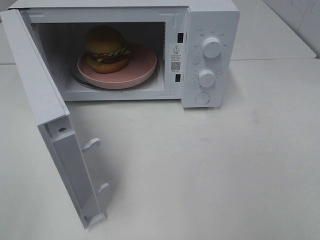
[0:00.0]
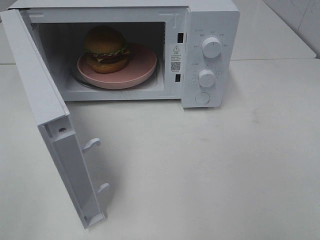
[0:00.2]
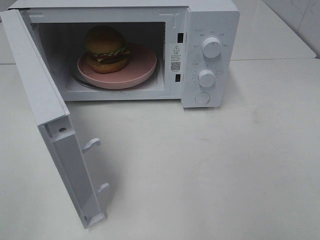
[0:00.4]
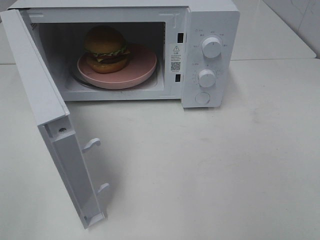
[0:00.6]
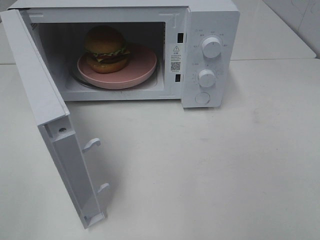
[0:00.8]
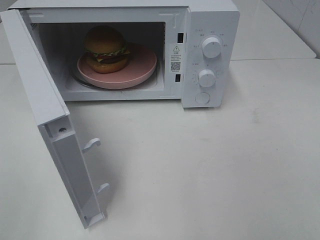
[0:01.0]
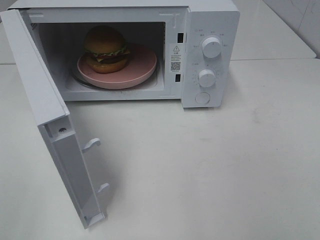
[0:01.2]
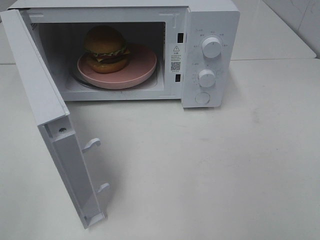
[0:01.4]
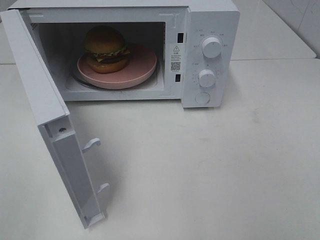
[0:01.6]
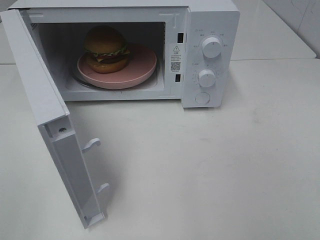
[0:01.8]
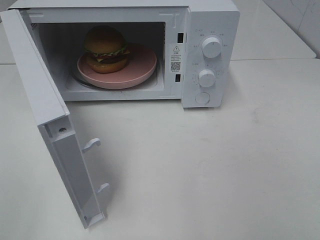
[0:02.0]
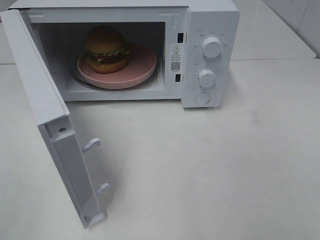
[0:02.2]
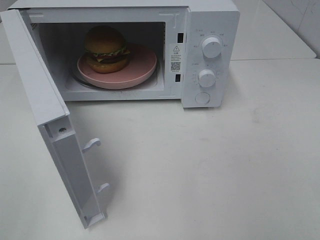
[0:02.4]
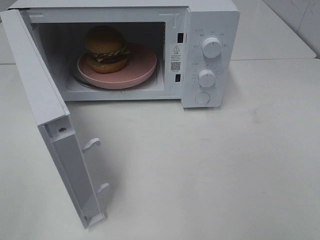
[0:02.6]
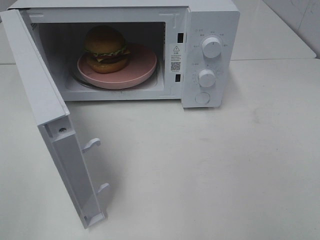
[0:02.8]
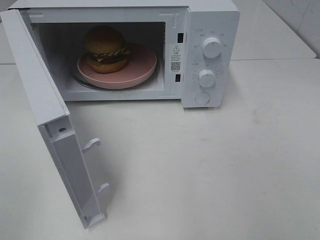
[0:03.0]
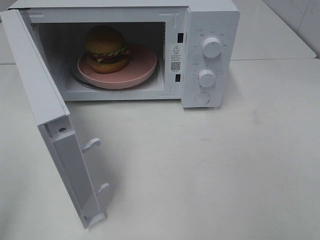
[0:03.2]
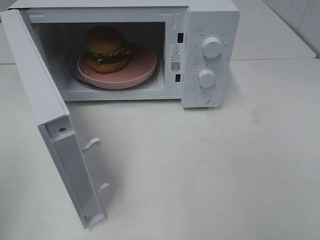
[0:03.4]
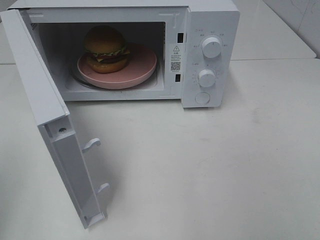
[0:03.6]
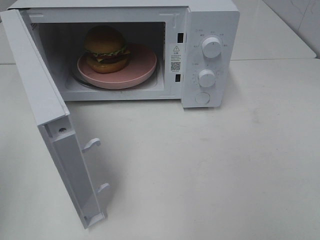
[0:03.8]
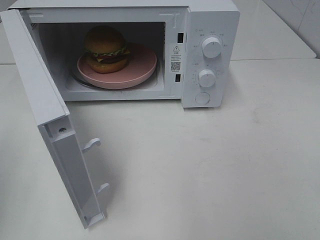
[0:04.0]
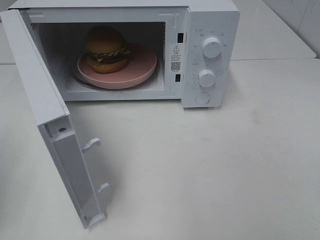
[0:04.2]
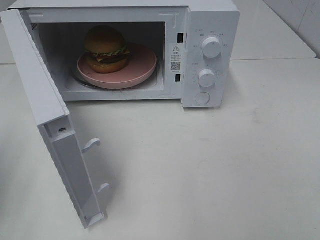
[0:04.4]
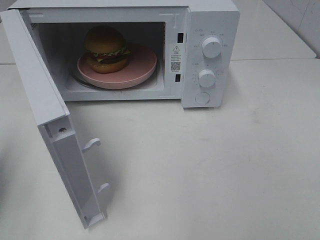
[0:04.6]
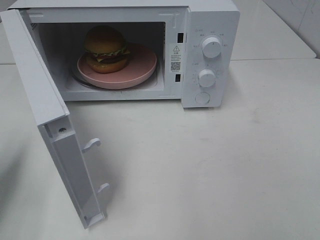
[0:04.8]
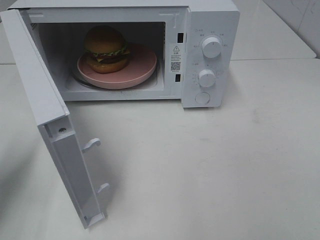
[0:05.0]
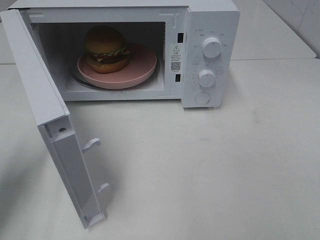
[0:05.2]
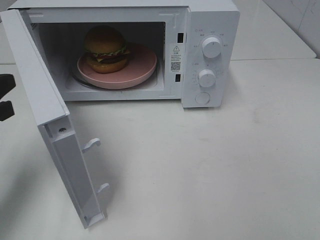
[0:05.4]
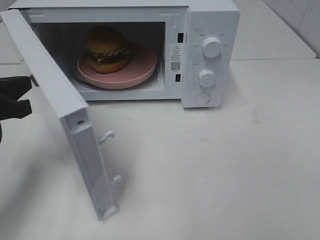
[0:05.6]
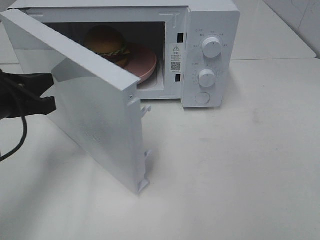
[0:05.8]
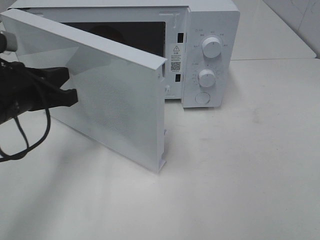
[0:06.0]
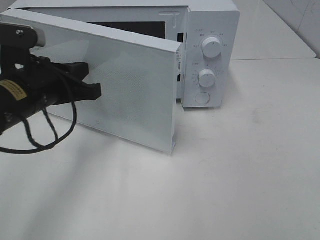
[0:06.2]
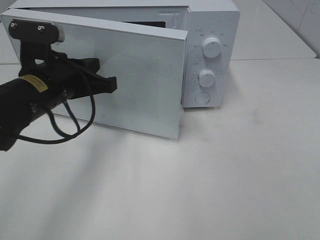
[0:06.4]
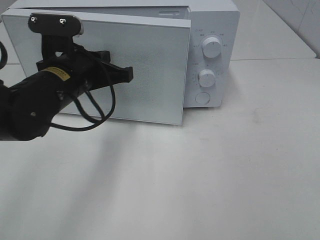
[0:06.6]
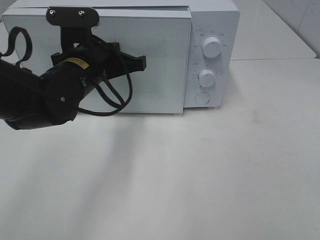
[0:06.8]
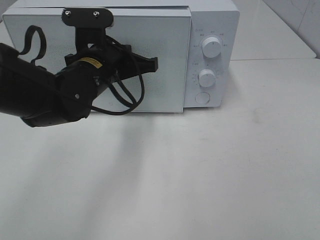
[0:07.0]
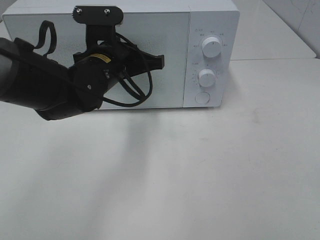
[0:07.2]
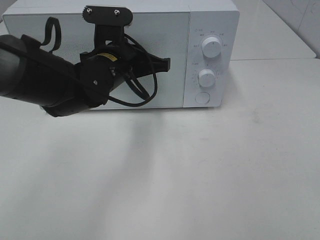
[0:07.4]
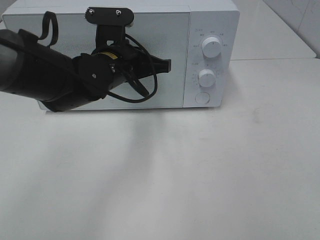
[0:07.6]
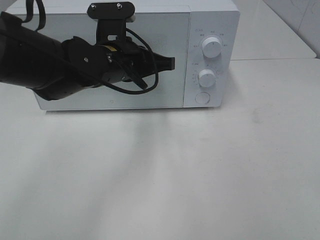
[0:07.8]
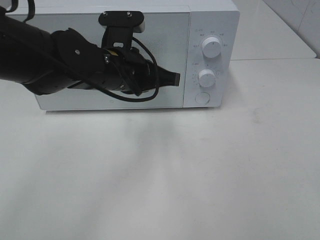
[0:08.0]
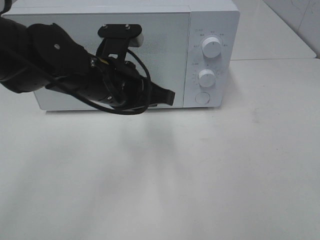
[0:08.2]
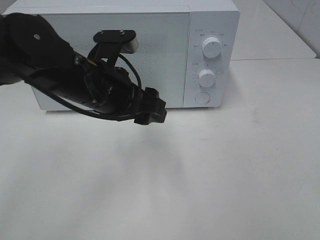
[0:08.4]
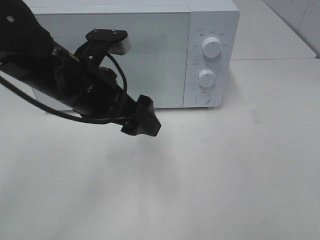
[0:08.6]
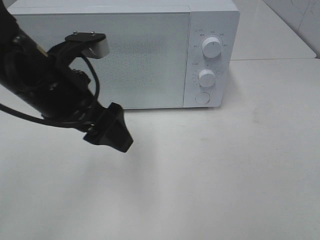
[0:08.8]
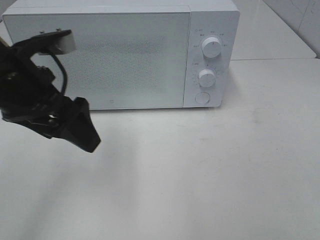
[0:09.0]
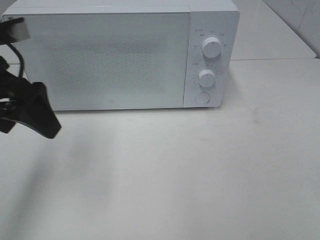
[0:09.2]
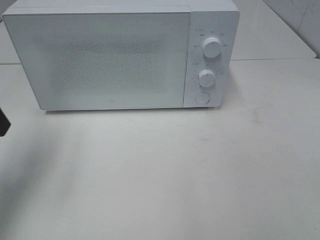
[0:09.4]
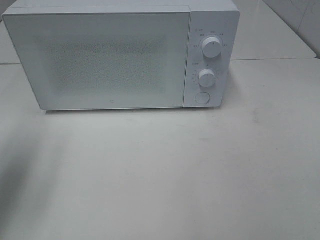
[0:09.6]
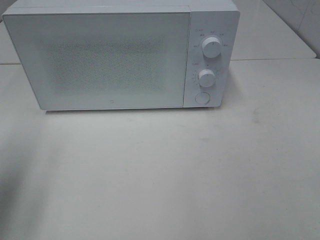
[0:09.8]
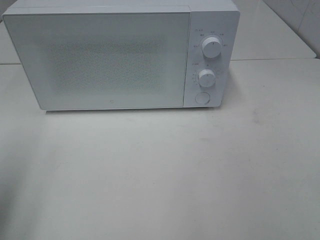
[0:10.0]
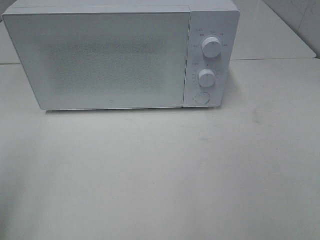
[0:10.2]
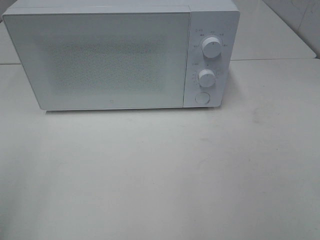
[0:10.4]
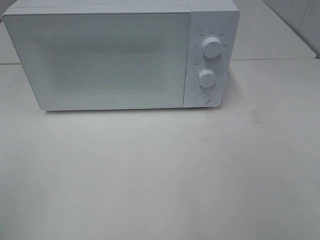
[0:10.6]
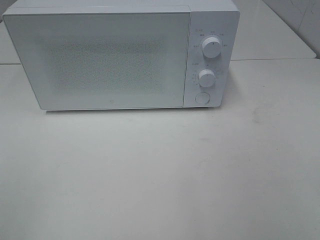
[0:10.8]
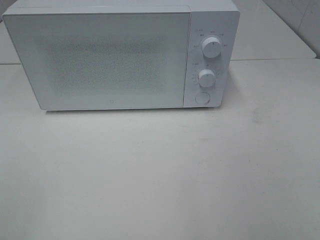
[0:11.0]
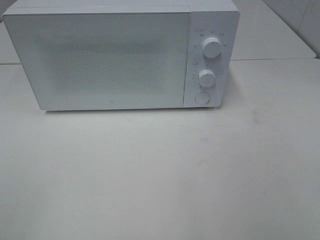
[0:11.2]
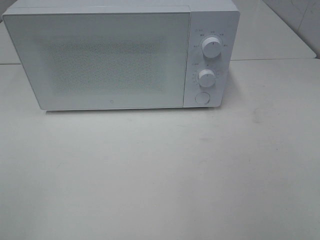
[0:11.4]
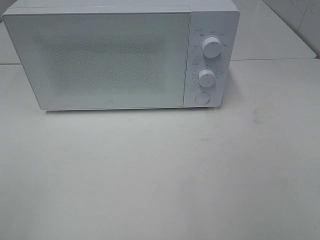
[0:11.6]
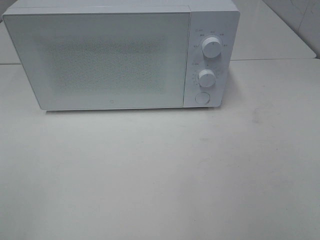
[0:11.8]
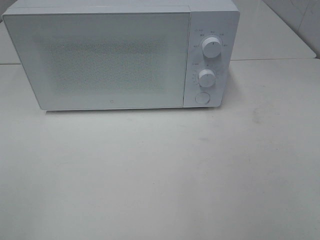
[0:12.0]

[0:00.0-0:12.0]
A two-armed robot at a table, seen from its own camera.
Task of the whole recording: Heat the burger.
Step, 0:00.0 to 0:08.2: Left hand: close the microwave door.
0:04.4 to 0:06.0: The left gripper travels to the right and forward by about 15 cm.
0:06.0 to 0:07.6: The left gripper is displaced to the right and forward by about 15 cm.
0:07.6 to 0:09.0: The left gripper travels to the left, backward and upward by roughly 15 cm, and opens up.
0:09.0 to 0:10.4: The left gripper moves backward and to the left, some 25 cm.

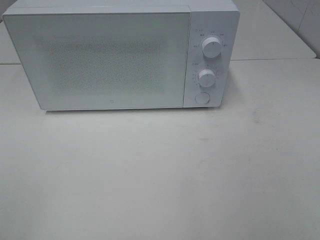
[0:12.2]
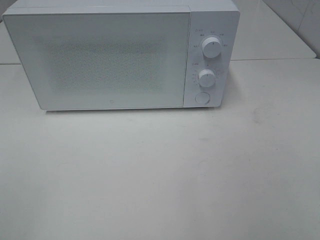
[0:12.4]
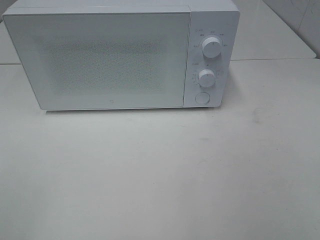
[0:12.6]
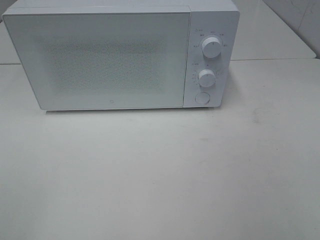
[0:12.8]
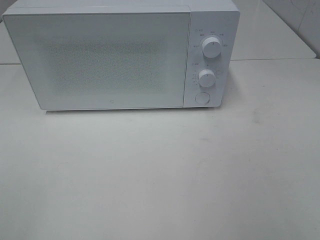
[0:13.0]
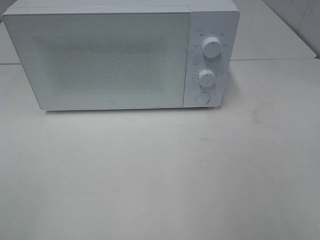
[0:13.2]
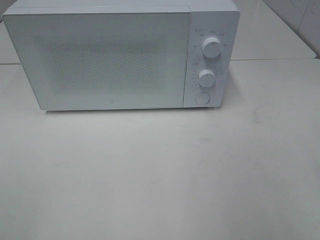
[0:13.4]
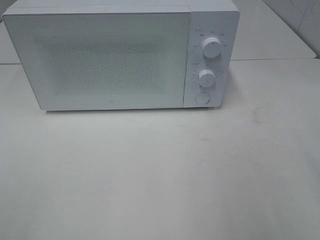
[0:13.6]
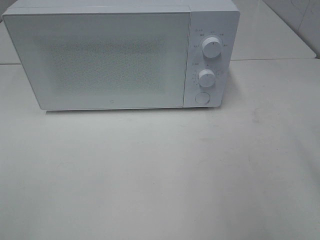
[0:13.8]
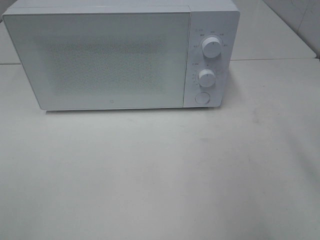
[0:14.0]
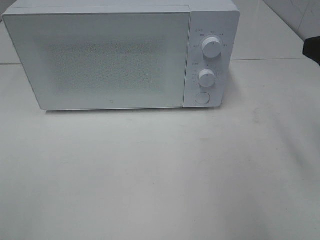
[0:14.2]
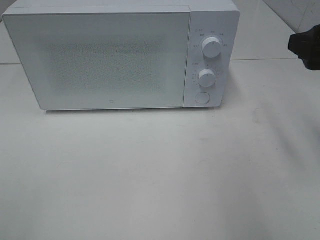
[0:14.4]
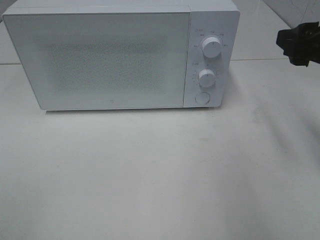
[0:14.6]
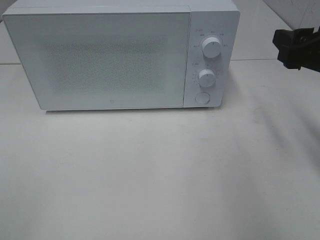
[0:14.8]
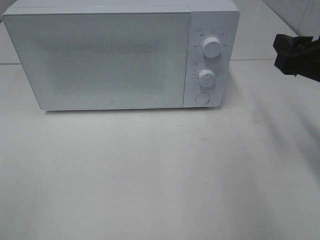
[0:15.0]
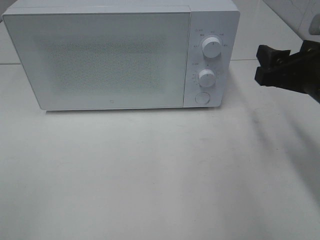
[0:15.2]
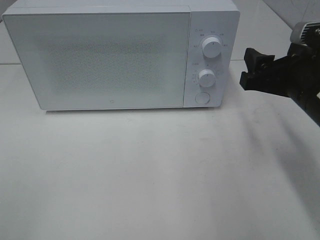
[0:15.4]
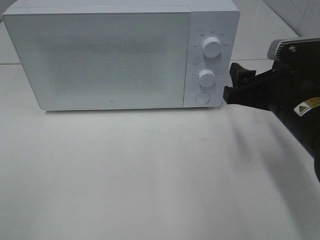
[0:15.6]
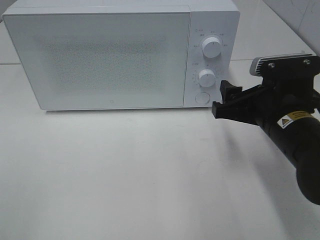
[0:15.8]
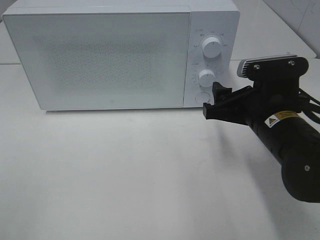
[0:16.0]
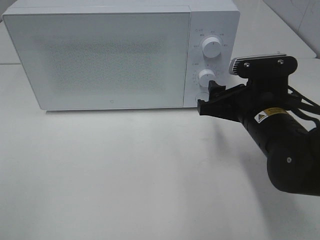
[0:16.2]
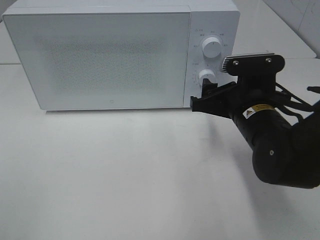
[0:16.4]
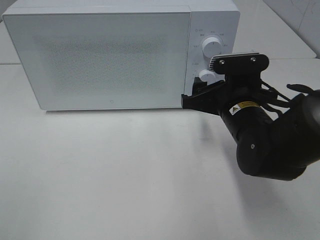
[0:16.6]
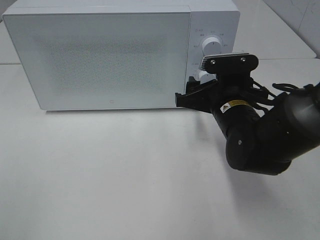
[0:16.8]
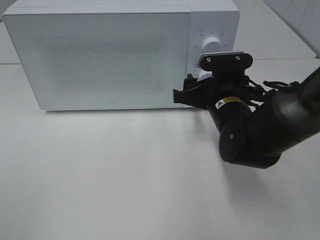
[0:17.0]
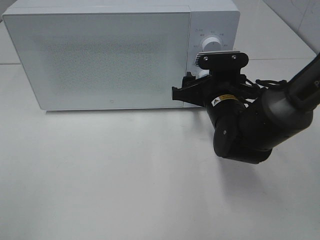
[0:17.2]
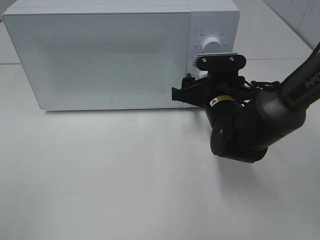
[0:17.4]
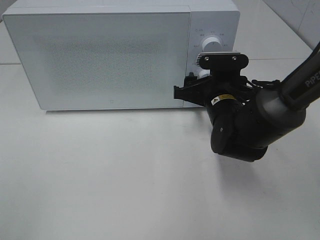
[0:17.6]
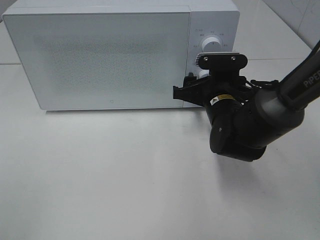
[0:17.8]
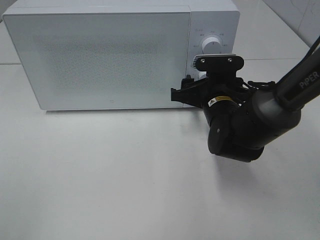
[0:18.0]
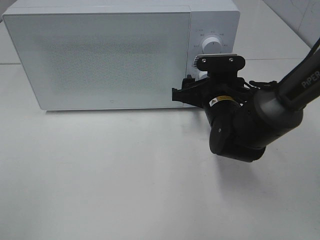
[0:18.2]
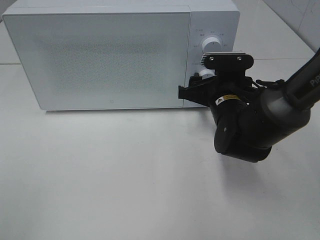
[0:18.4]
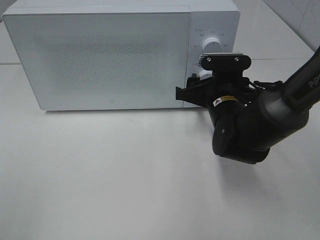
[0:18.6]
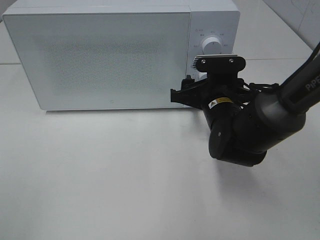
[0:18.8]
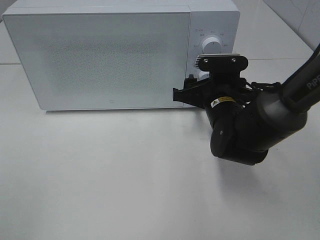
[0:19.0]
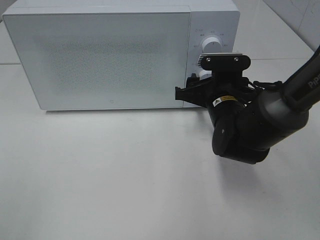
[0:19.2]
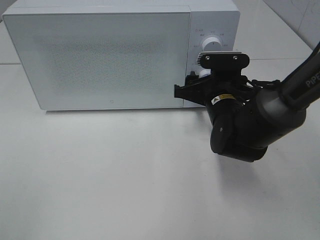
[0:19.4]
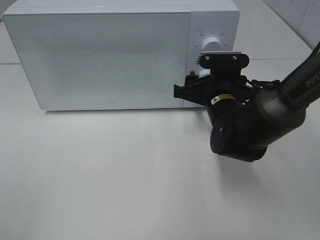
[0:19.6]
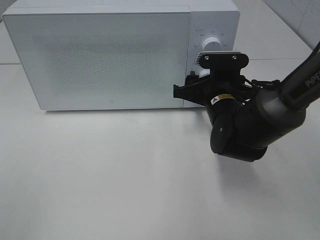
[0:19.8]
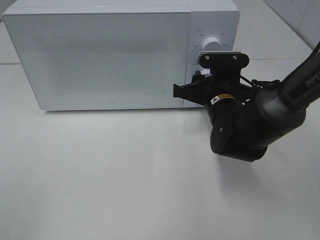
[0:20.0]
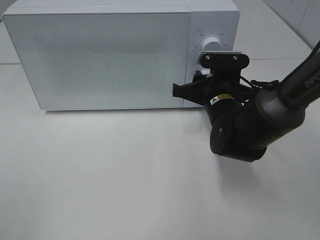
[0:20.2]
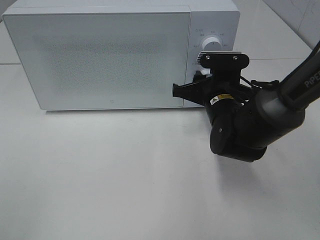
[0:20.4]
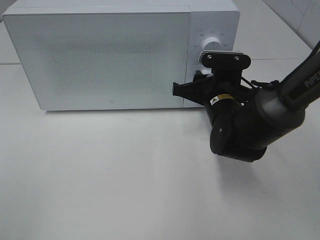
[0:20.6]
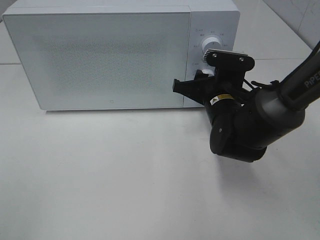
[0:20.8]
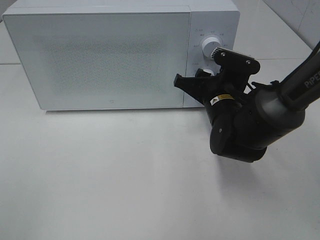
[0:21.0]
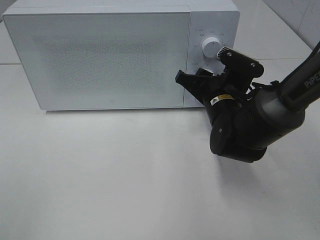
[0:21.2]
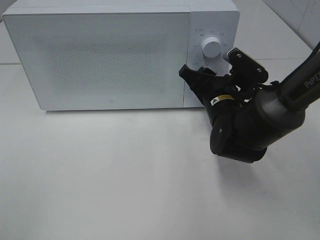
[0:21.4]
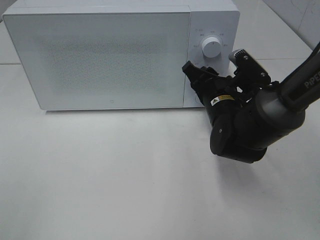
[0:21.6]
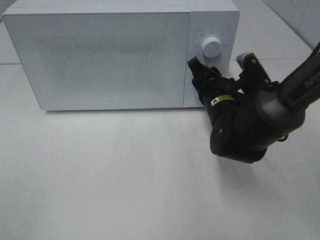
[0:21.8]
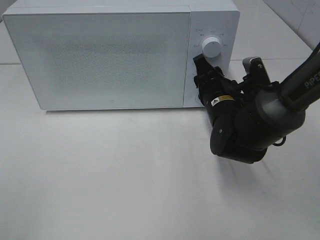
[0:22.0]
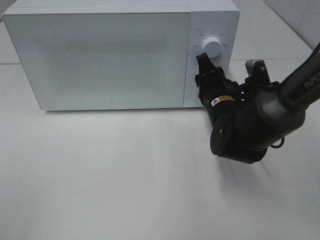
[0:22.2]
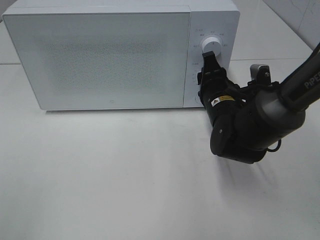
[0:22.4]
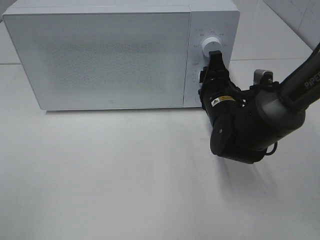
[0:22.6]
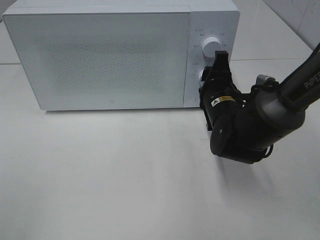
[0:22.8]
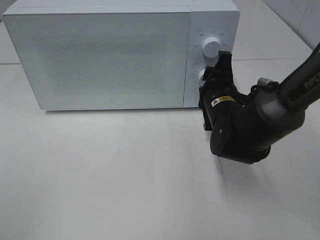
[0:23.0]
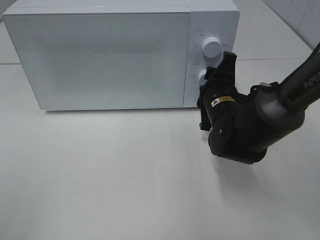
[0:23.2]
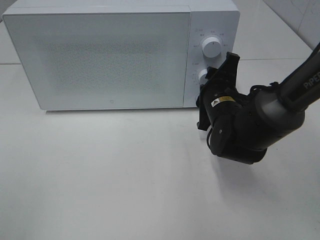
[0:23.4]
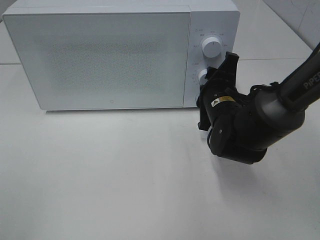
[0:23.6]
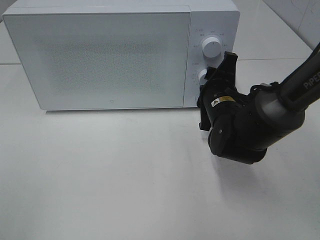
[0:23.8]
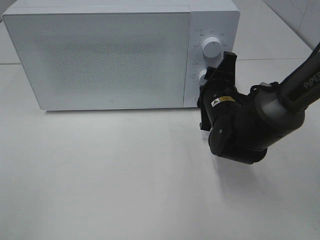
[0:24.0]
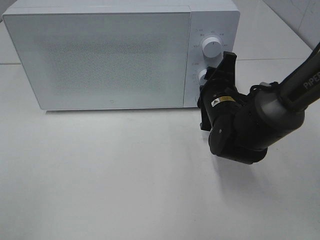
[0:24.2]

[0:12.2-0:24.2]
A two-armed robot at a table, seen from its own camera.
Task of the whole recording: Heat the burger.
0:13.8 to 0:15.2: The right gripper is displaced forward and downward by some 15 cm.
0:15.2 to 0:16.6: The right gripper shifts roughly 10 cm to the left and downward.
0:16.6 to 0:18.2: The right gripper moves approximately 5 cm.
0:18.2 to 0:19.8: Both grippers stay put.
